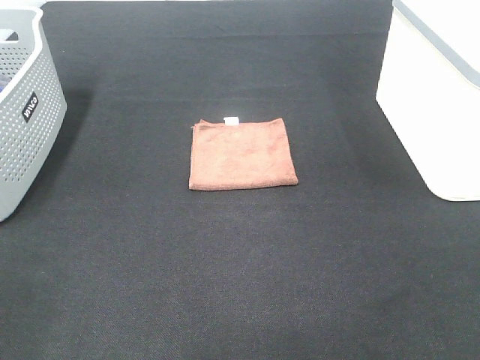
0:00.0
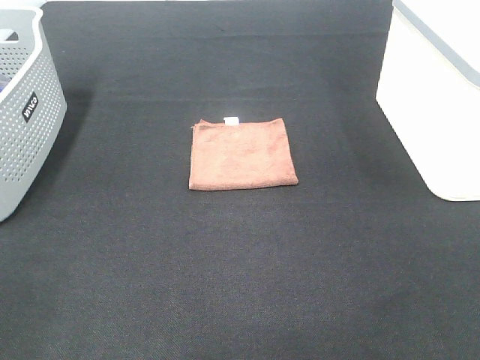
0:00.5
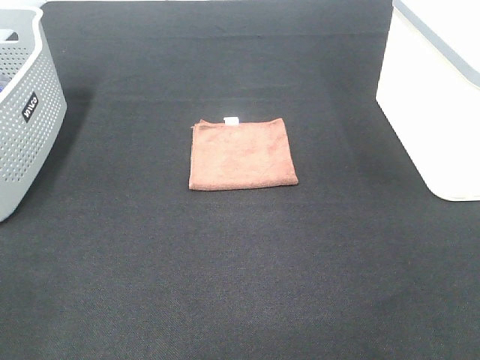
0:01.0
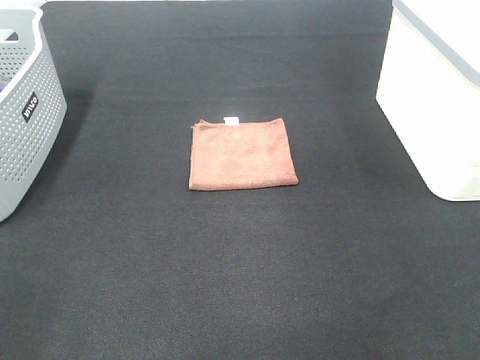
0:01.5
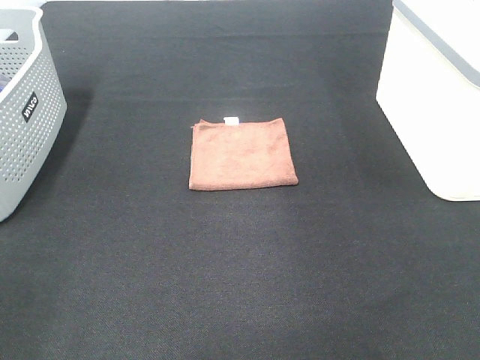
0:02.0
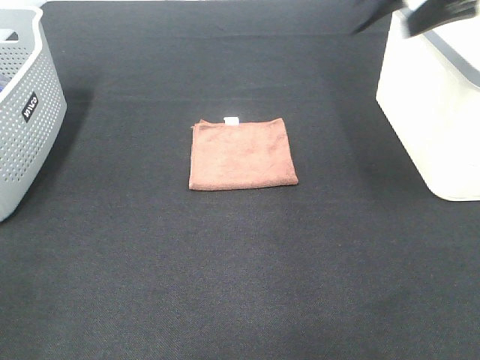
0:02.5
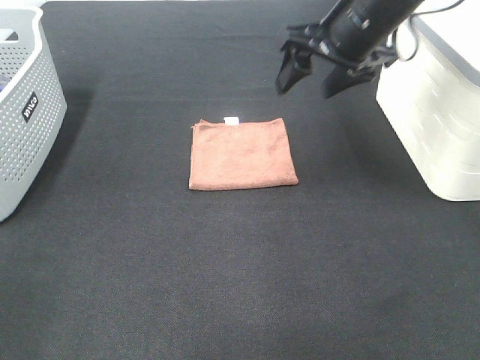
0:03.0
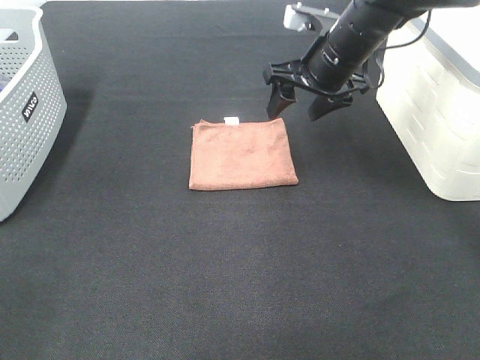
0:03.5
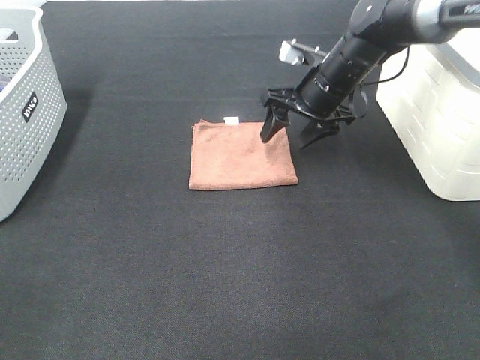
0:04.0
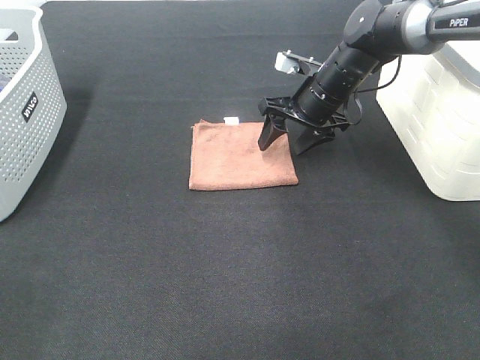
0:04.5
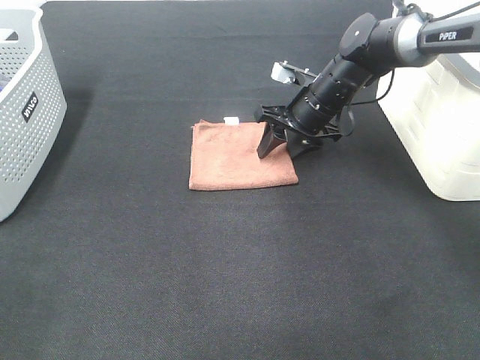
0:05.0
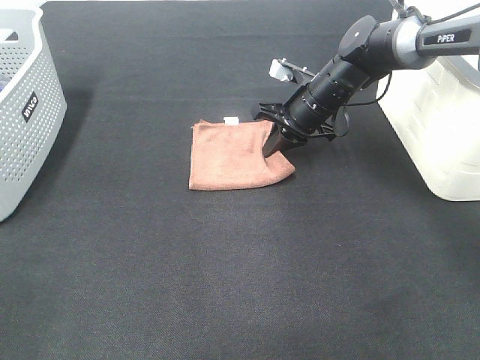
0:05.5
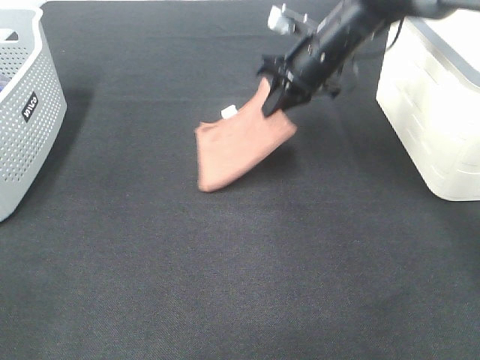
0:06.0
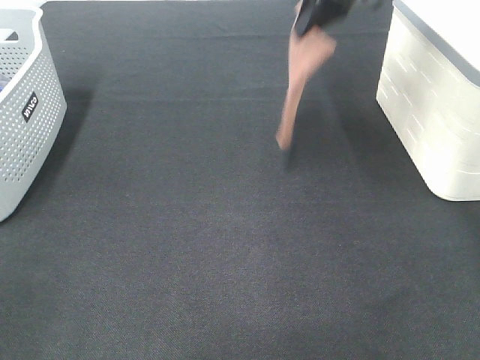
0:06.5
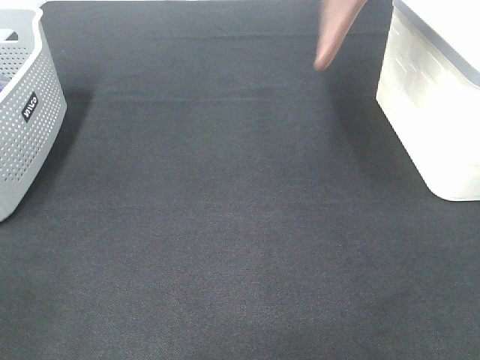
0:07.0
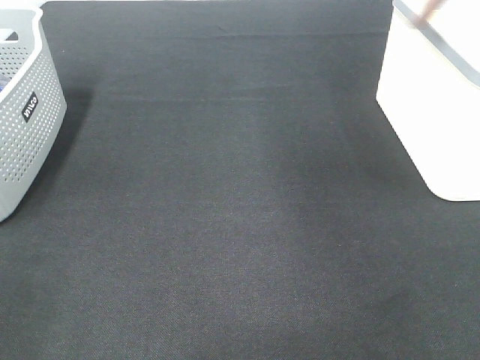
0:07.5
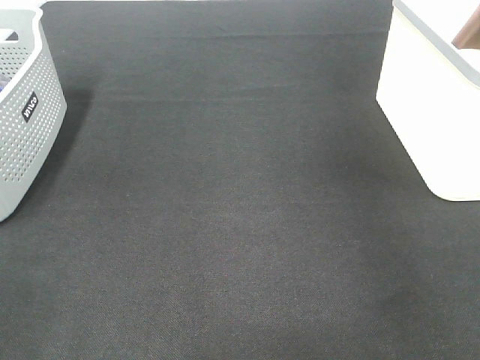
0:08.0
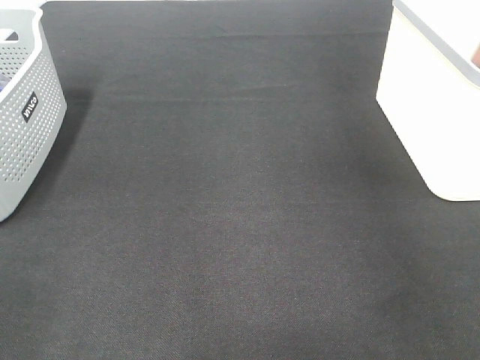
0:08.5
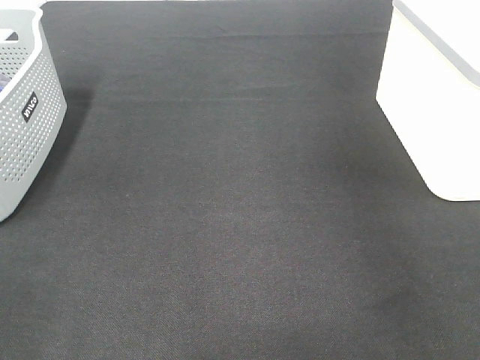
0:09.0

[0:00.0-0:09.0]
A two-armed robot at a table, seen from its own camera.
Step, 0:00.0 to 0:05.5: Right hand: grab the folded brown towel.
Step, 0:06.0 to 0:08.5: Right hand: place the brown towel in right basket.
0:02.0 to 0:04.5: The right gripper is displaced downward, forward and to the left by some 35 cm.
0:04.5 to 0:07.0: The right gripper moves upward, approximately 30 cm, and closes.
0:07.0 to 0:09.0: The right gripper moves to the right, roughly 20 cm, and opens its fingers.

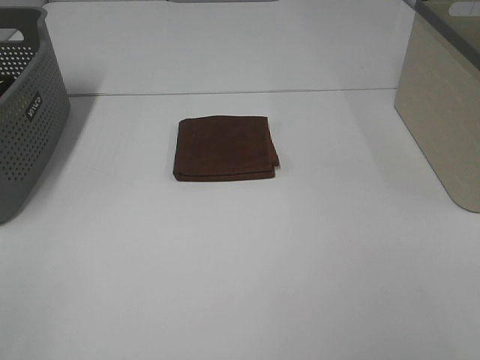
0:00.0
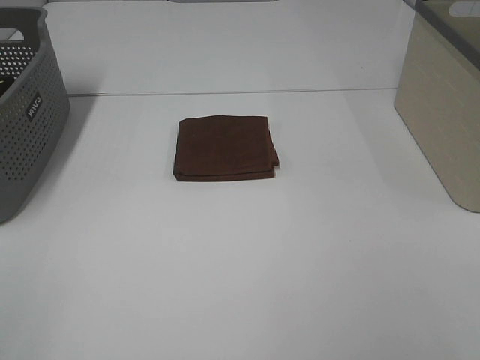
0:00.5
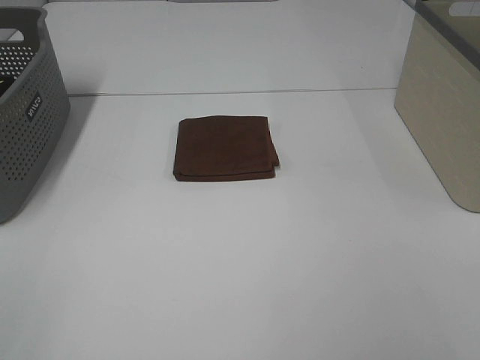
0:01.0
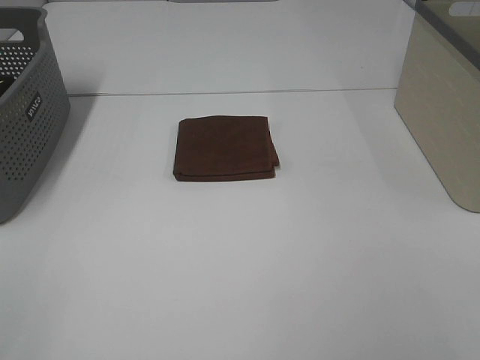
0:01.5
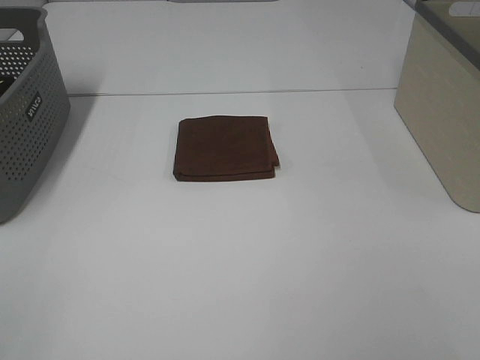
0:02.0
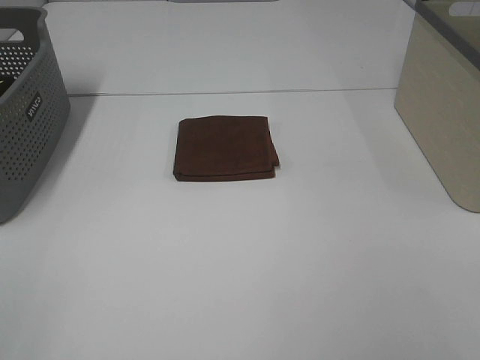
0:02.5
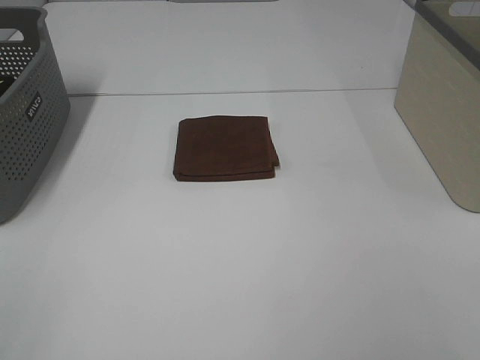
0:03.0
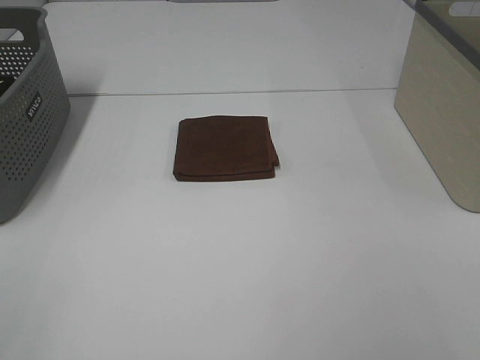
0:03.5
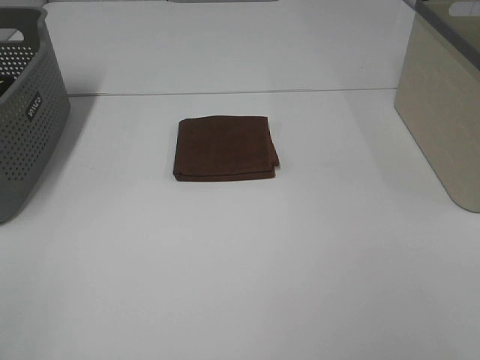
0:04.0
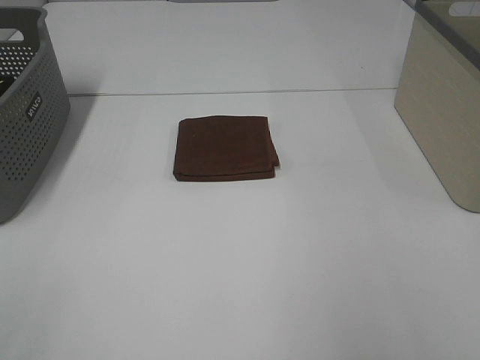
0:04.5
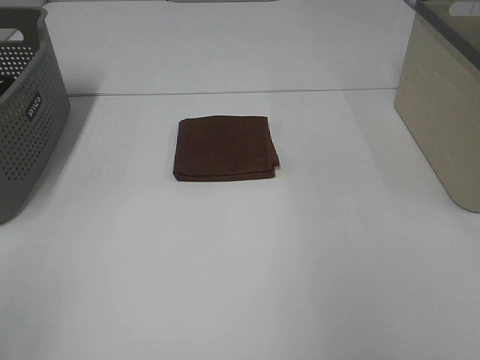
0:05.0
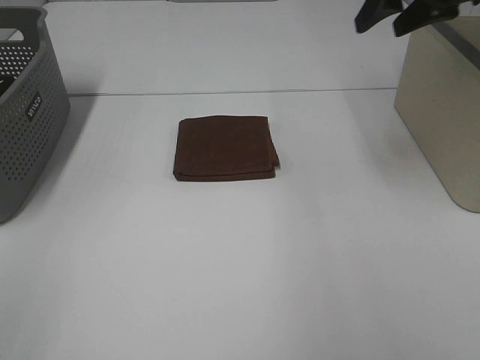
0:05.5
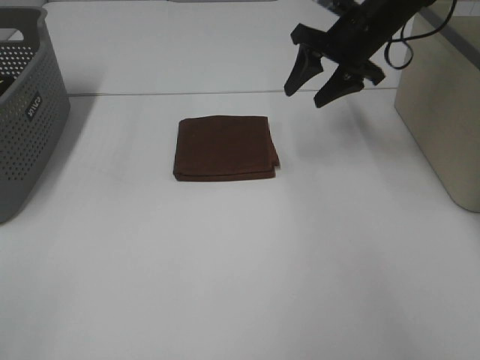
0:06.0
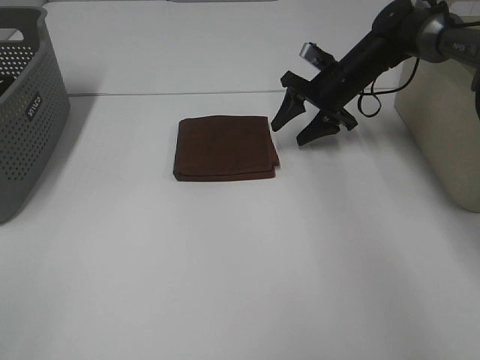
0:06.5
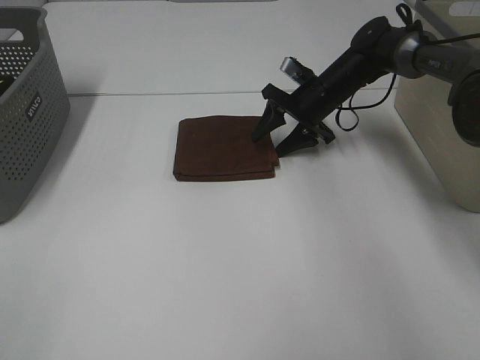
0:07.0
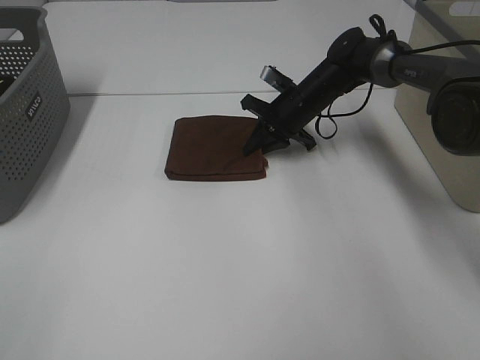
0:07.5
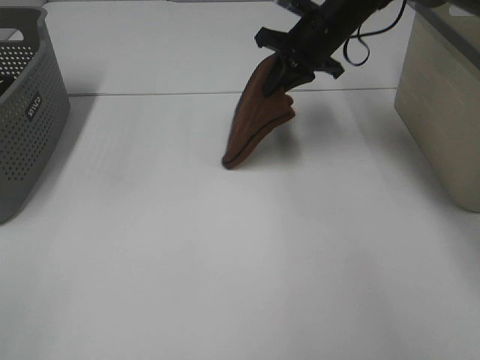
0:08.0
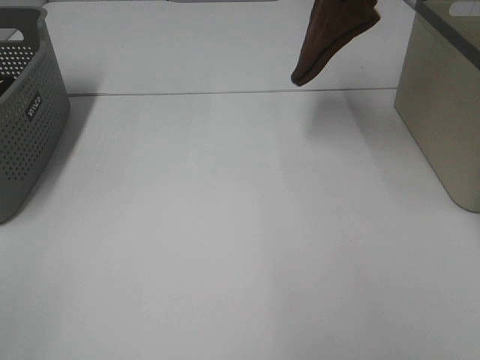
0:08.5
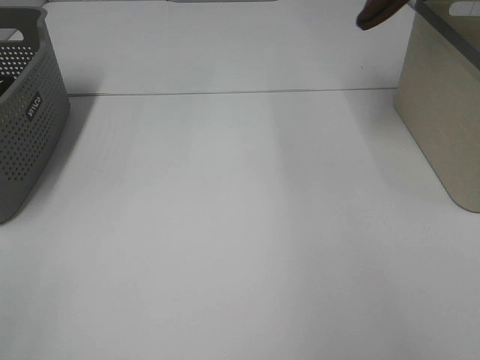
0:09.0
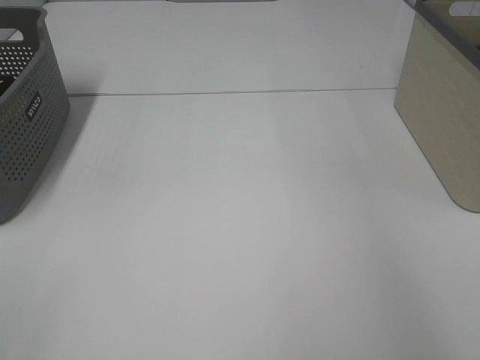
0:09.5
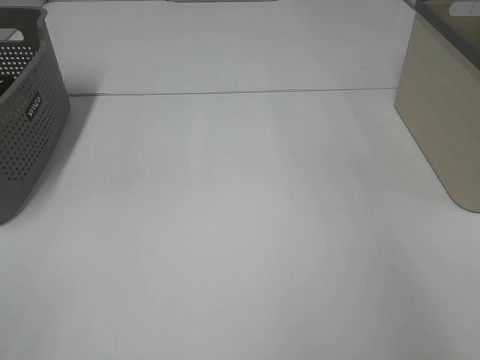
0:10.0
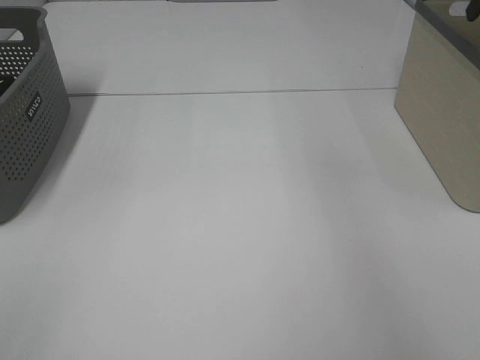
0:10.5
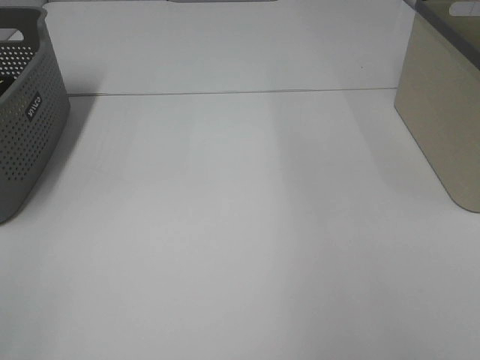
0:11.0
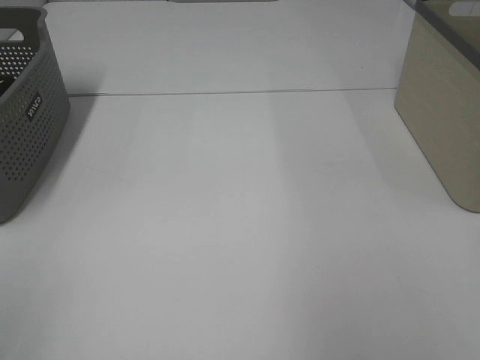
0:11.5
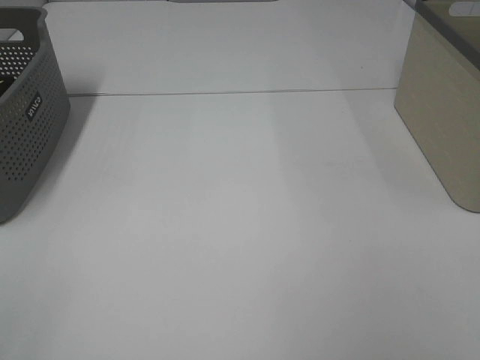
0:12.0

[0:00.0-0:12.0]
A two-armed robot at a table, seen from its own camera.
Step, 0:00.0 to 0:07.5: Right hand: grab the folded brown towel.
Step, 0:08.0 to 0:10.0: Right hand: place the brown towel in right basket.
0:00.0 to 0:04.0: Both grippers stay about where they are.
0:04.0 to 0:06.0: The right gripper travels forward by about 50 cm.
0:06.0 to 0:08.0: The right gripper travels downward and back again, some 15 cm each way, and closes up.
0:08.0 to 0:10.0: The right gripper moves to the right and upward, about 30 cm, and opens up.

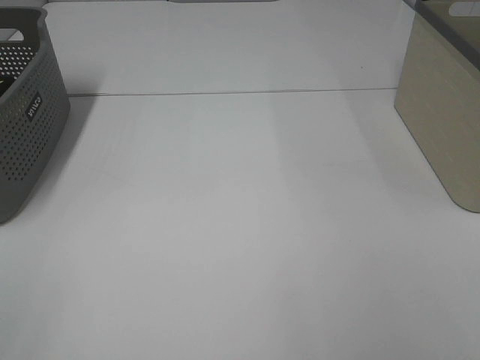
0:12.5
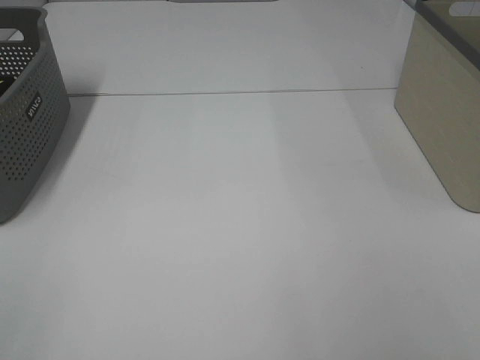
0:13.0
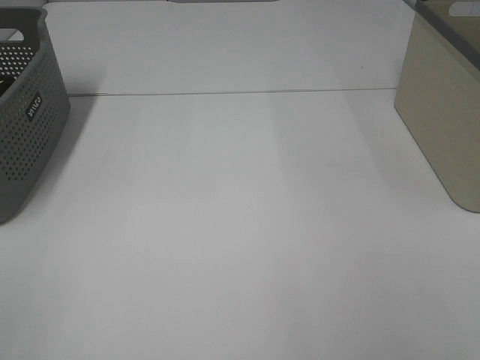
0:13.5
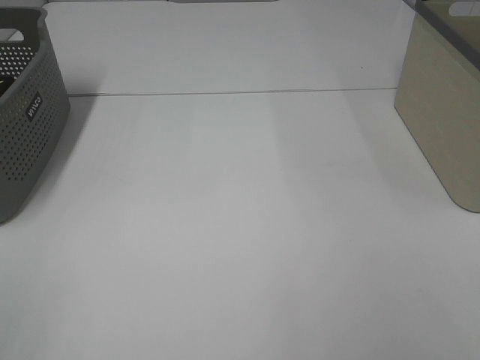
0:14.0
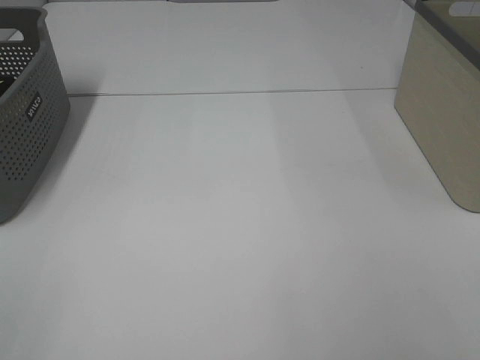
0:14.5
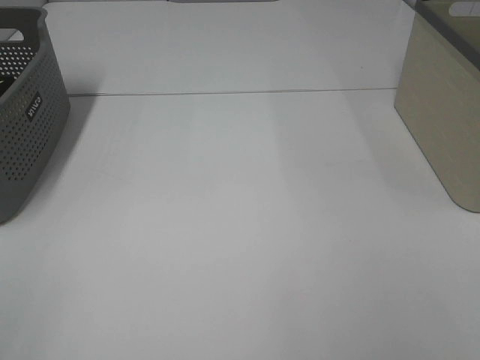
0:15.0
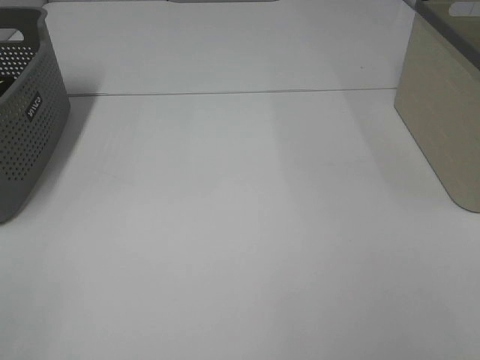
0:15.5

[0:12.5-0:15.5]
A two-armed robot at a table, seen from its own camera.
0:14.0 to 0:15.5: Both grippers stay put.

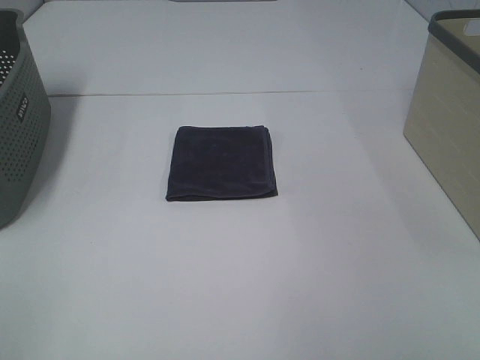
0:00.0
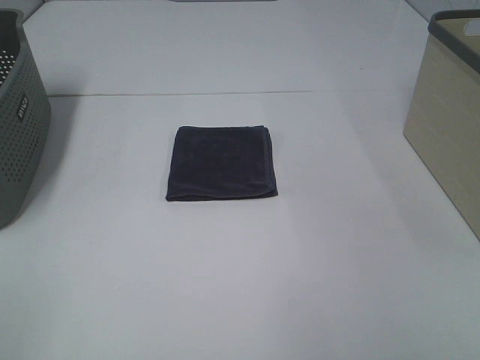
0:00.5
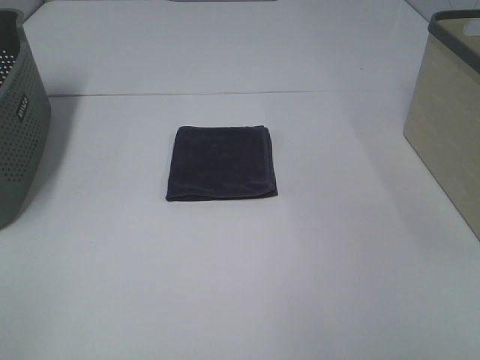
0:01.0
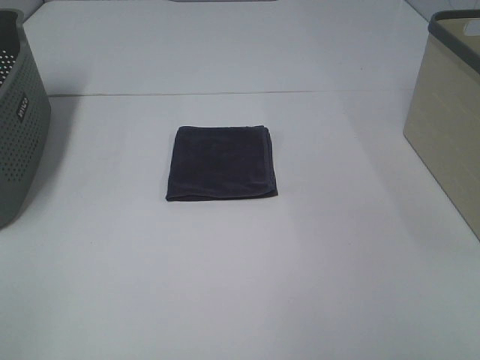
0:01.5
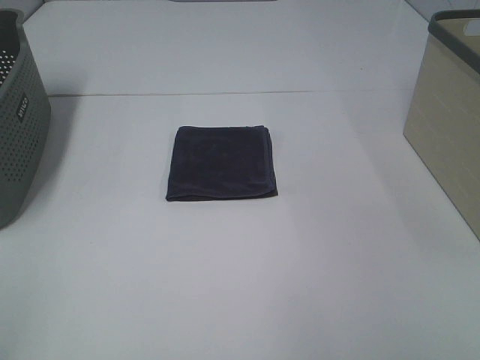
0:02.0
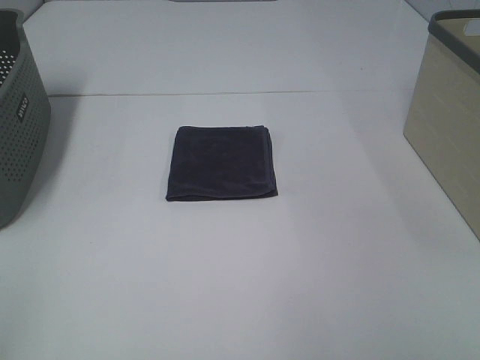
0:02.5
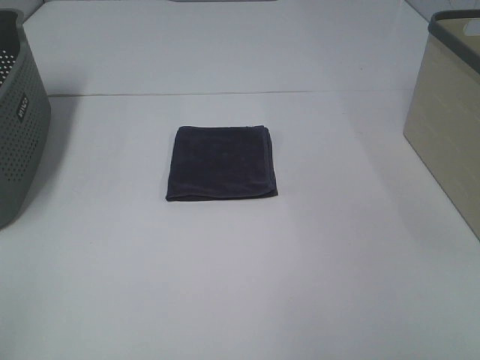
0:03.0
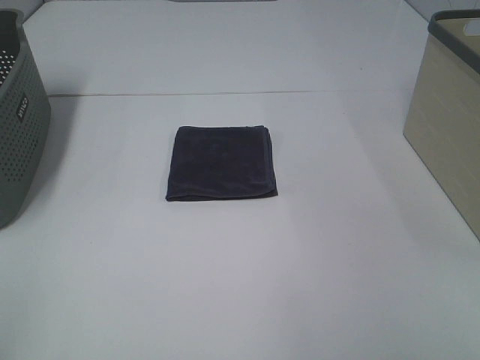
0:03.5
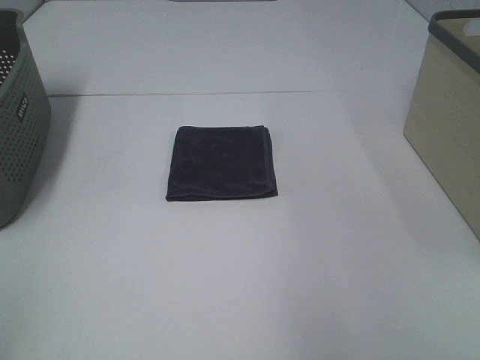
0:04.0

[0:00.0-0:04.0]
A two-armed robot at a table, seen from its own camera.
0:00.0 to 0:02.0: The two grippers keep their place.
